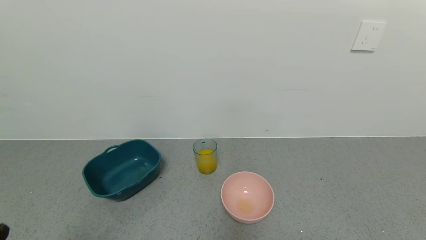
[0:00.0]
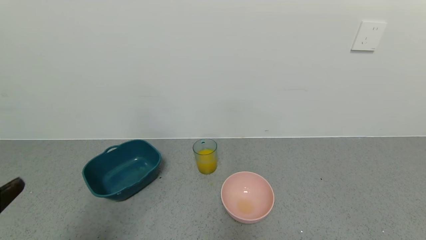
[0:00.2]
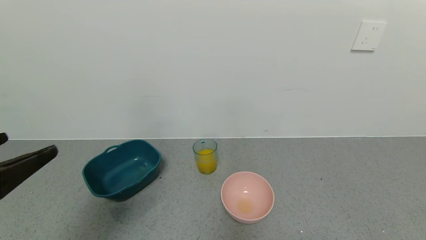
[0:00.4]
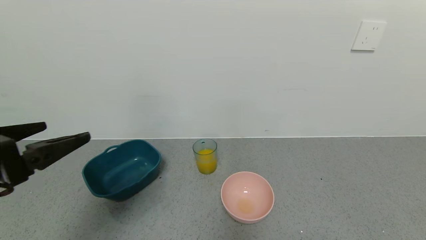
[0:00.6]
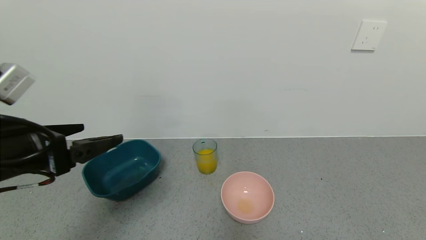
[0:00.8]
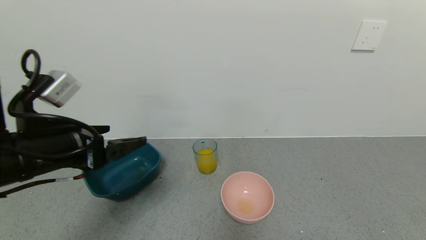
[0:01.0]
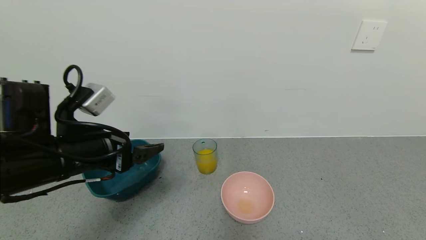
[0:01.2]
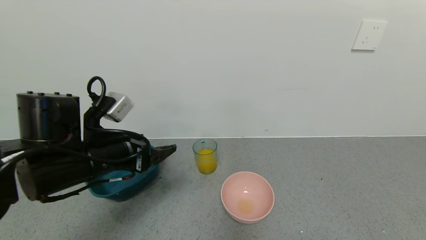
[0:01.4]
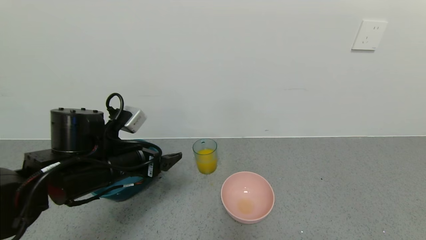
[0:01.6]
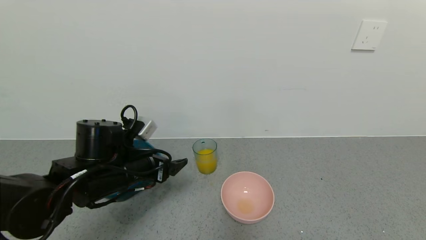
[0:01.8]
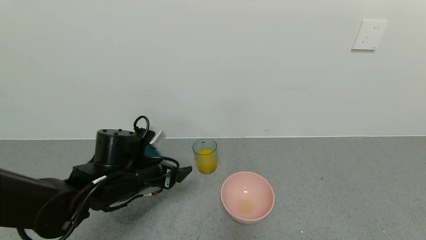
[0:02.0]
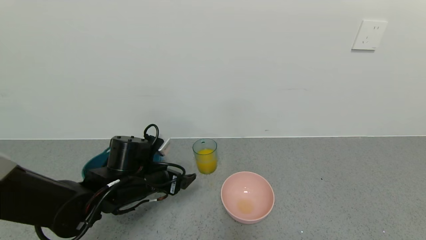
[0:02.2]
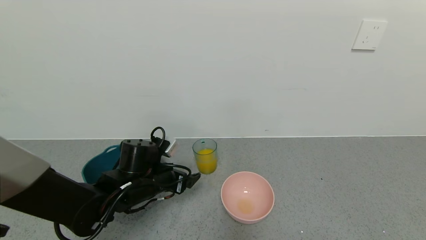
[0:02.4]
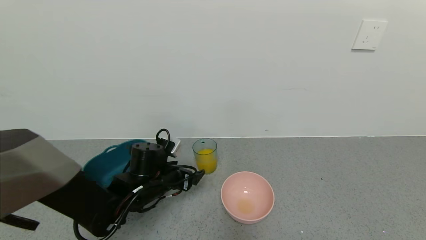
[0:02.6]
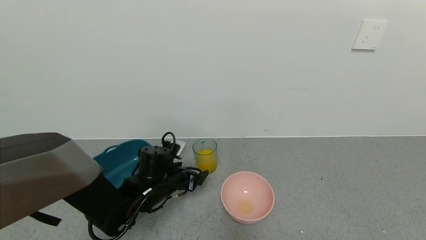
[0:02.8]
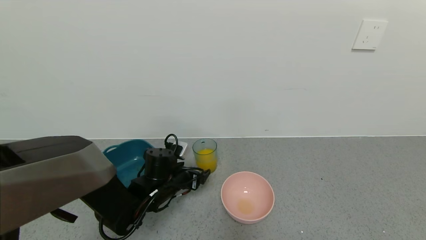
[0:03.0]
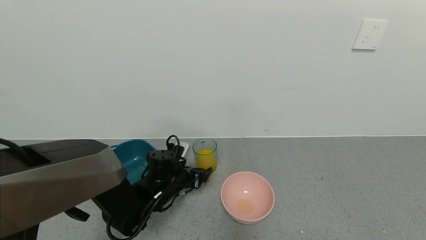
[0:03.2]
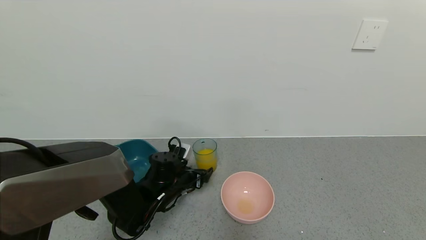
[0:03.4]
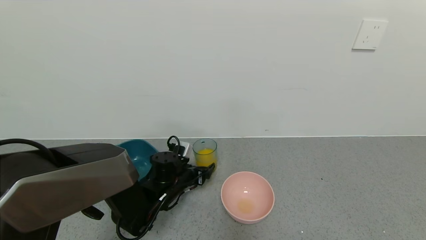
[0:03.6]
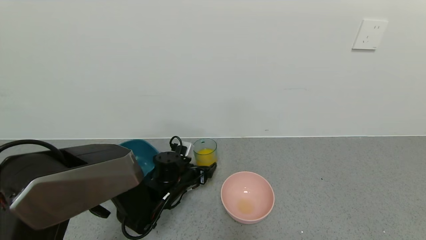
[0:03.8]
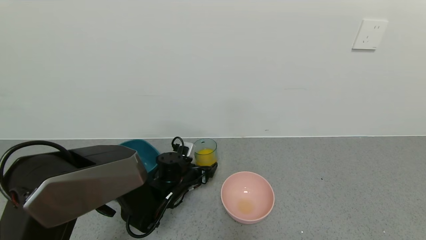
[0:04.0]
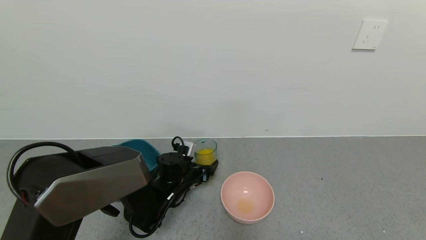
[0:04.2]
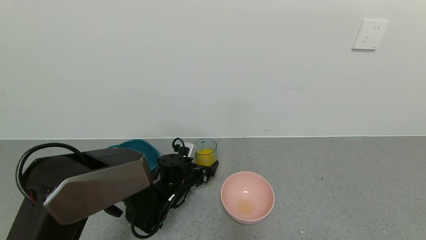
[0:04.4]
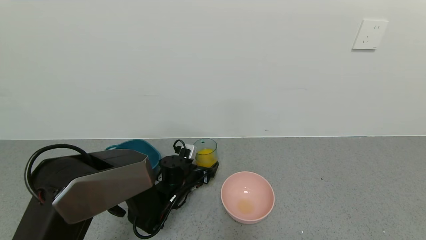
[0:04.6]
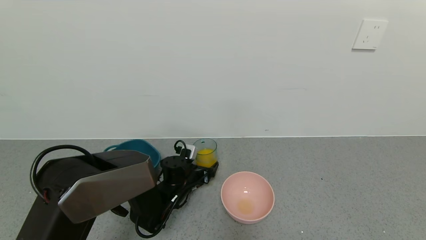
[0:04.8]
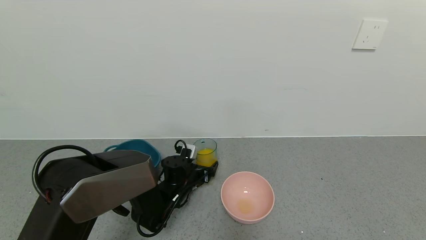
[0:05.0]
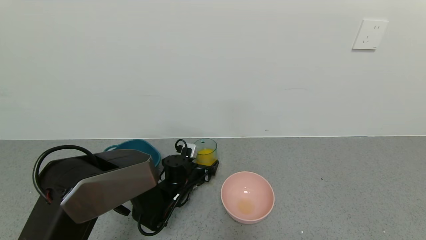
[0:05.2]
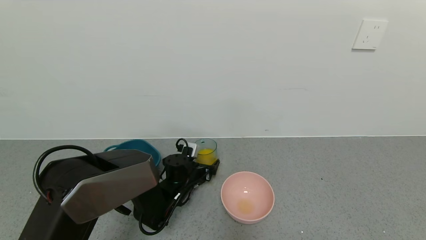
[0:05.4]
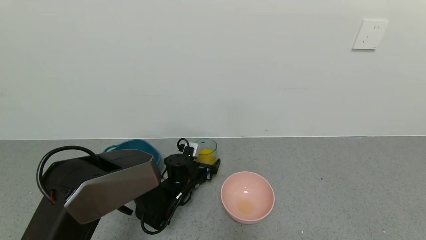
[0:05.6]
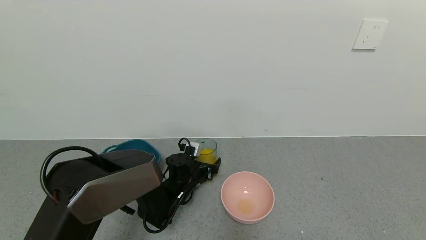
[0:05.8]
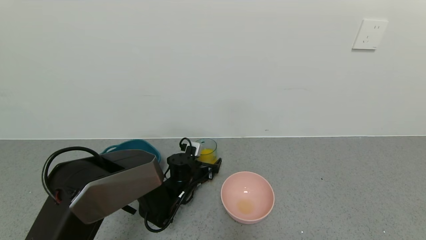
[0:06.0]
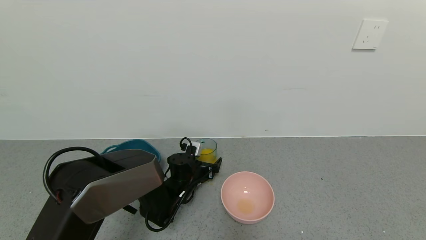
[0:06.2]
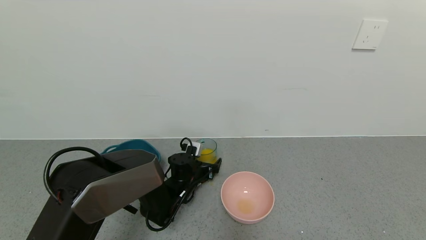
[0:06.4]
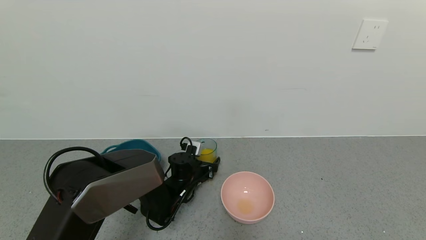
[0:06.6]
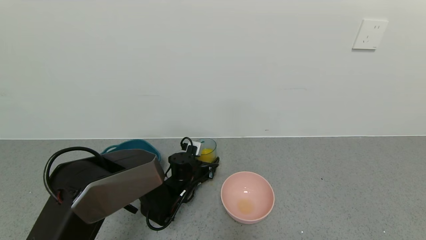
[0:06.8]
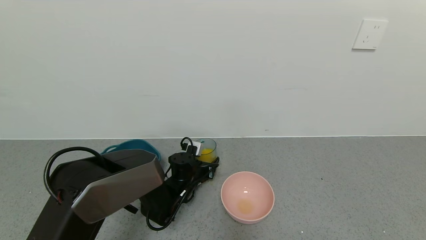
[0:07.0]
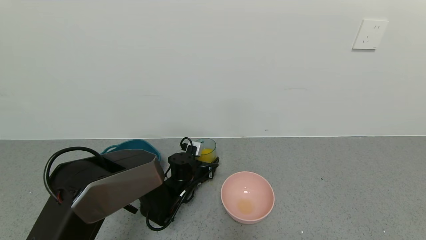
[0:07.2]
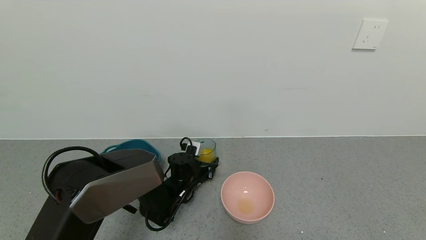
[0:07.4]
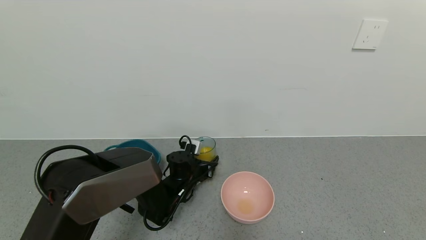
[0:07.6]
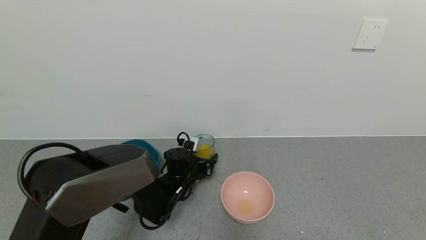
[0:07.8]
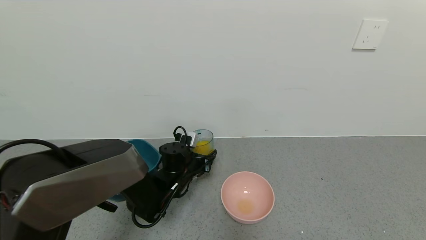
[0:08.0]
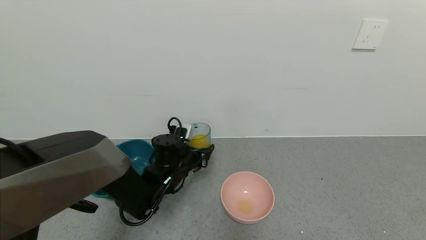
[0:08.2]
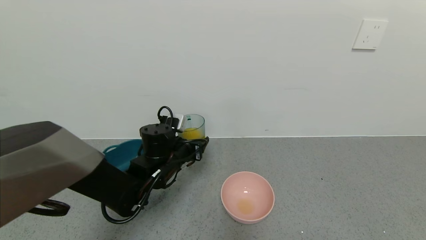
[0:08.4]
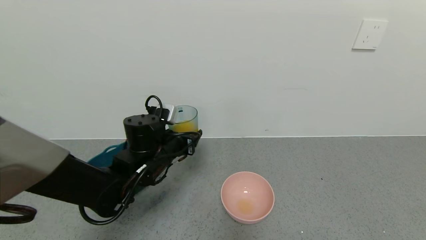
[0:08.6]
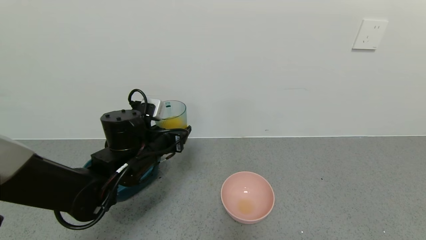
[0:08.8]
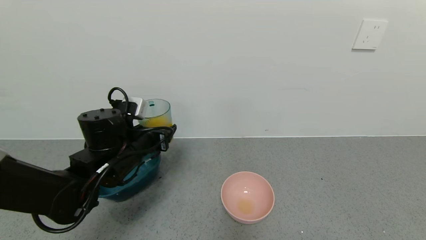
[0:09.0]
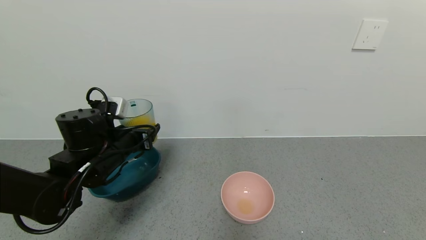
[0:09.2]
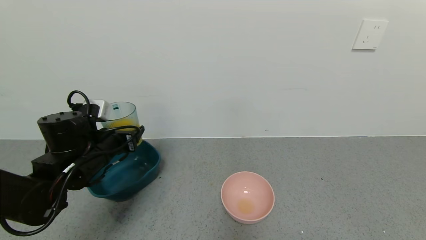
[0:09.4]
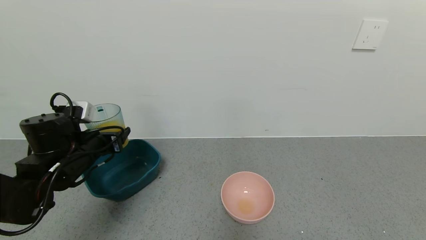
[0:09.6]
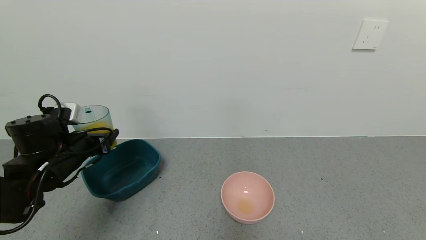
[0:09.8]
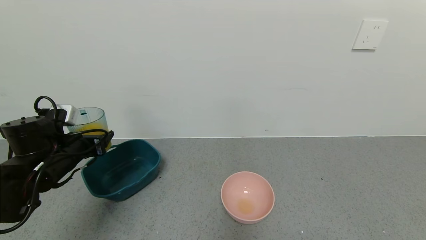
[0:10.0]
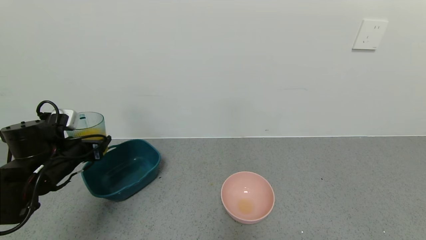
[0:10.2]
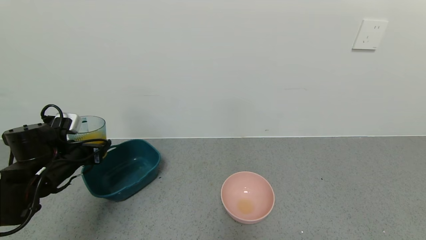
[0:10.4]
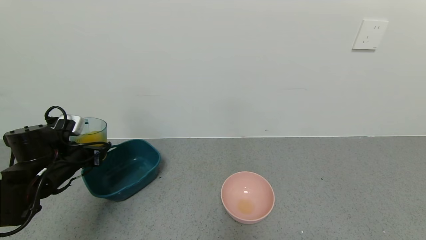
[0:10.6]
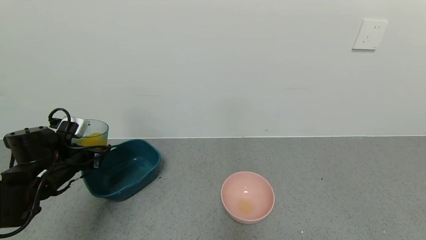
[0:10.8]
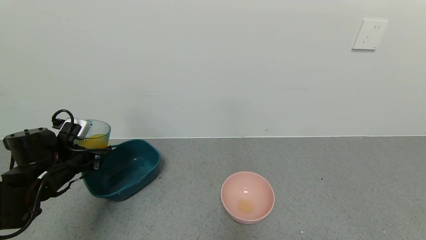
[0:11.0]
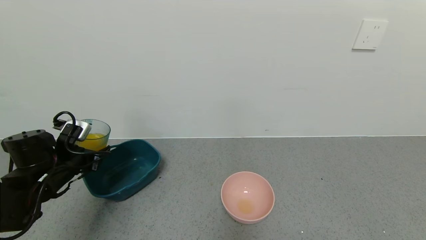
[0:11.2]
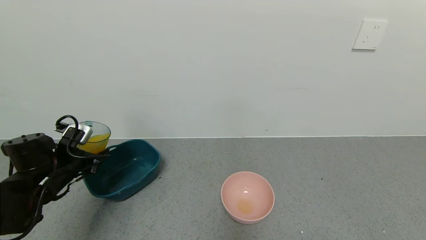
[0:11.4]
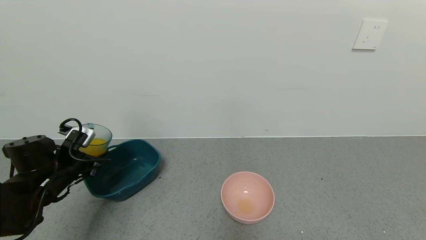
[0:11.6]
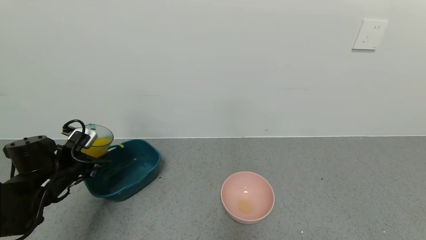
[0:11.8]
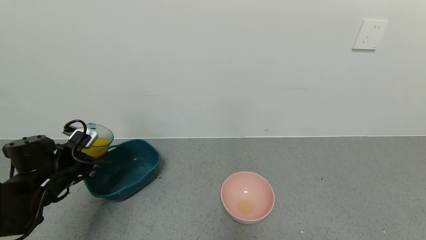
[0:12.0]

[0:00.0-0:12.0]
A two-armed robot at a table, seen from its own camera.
Task of the whole recording: use a gripper to pick up the cup and pour the liquid into a bowl or tray.
Step, 0:00.0 to 0:07.0: Grasp the glass of orange juice with the left gripper.
0:00.0 to 0:01.6: The left gripper is displaced forward, to the right and downward by about 20 cm.
0:01.6 to 0:03.0: The left gripper heads downward, forward and to the right, covering about 15 cm.
0:03.0 to 0:04.4: The left gripper changes place by roughly 5 cm.
0:04.4 to 0:06.0: The grippers stay close to where they were, moving slightly.
0:06.0 to 0:07.6: The left gripper closes.
0:07.6 to 0:09.0: The left gripper is displaced upward, to the left and backward by approximately 20 cm.
0:09.0 to 0:10.4: The left gripper heads to the left, covering about 15 cm.

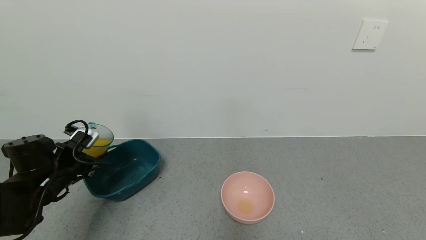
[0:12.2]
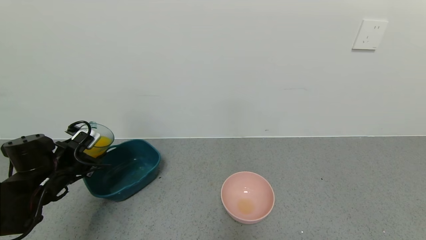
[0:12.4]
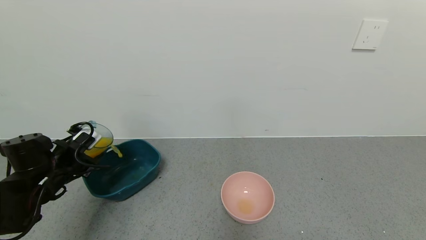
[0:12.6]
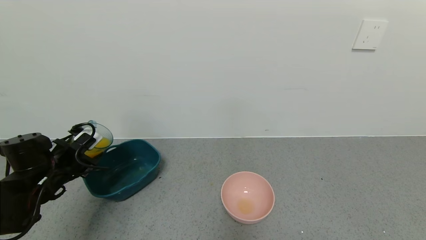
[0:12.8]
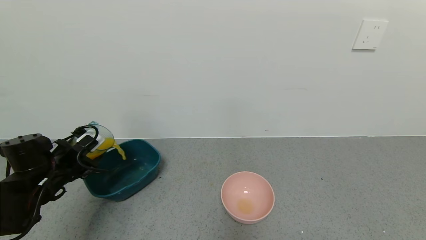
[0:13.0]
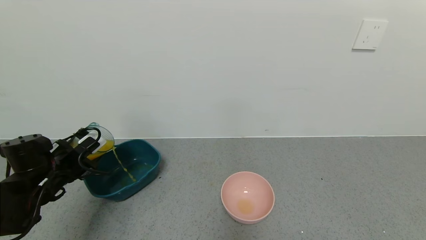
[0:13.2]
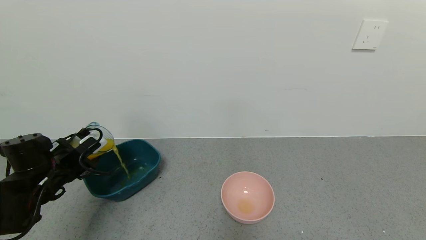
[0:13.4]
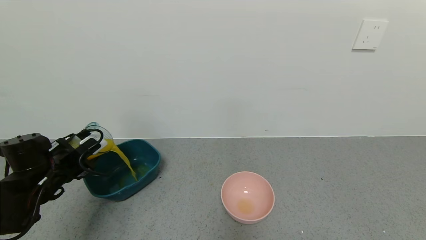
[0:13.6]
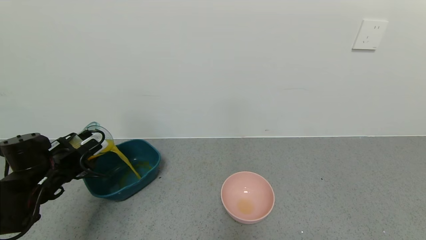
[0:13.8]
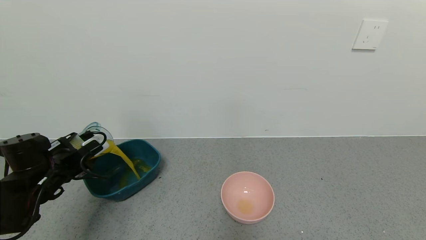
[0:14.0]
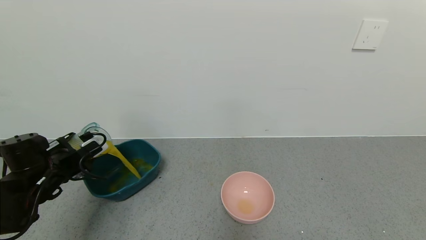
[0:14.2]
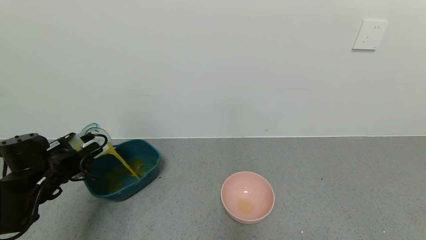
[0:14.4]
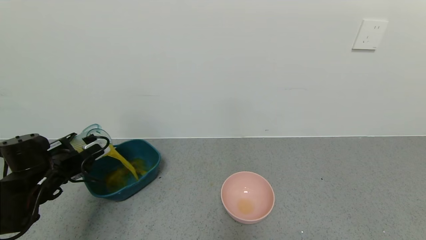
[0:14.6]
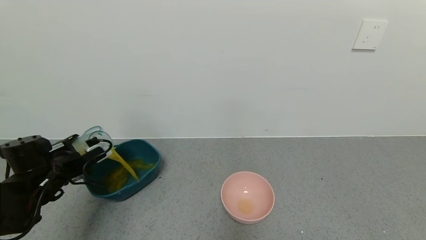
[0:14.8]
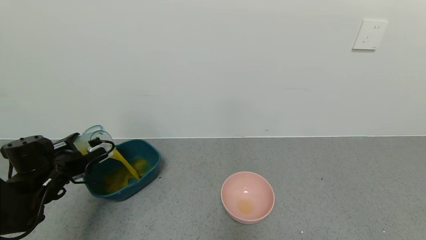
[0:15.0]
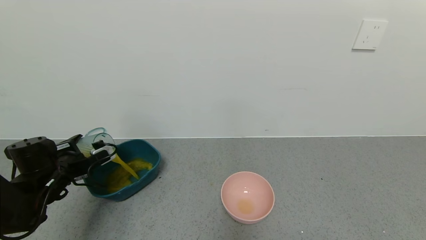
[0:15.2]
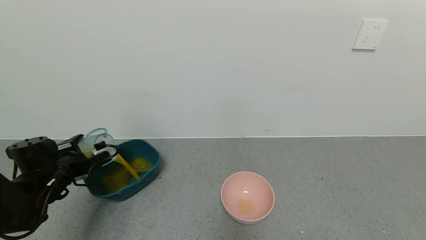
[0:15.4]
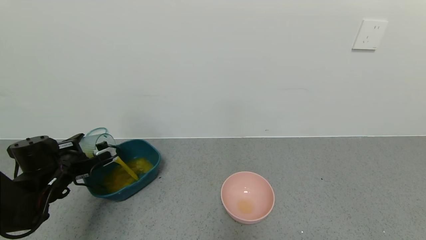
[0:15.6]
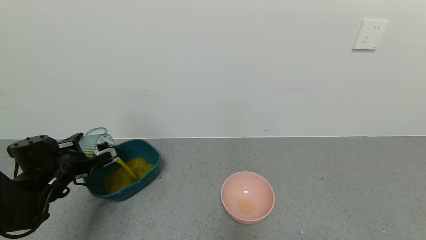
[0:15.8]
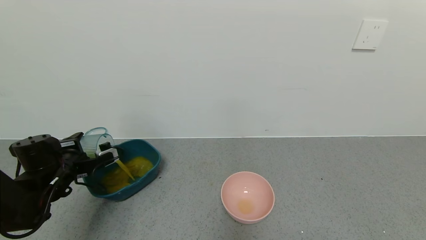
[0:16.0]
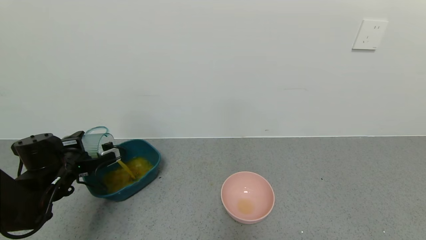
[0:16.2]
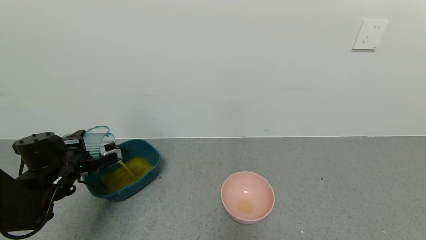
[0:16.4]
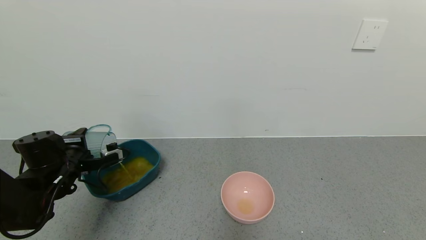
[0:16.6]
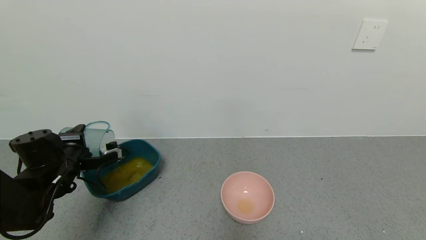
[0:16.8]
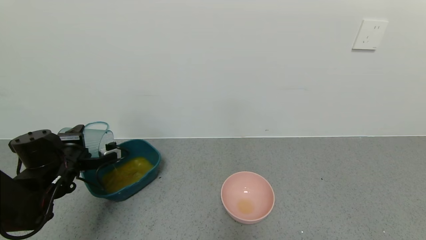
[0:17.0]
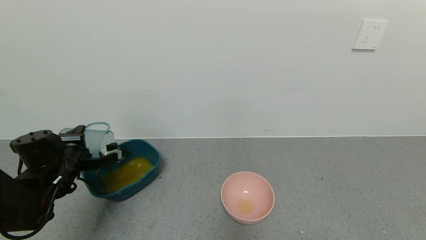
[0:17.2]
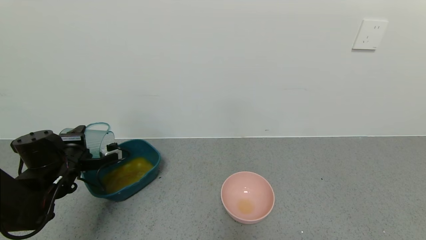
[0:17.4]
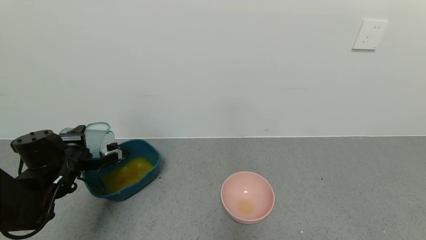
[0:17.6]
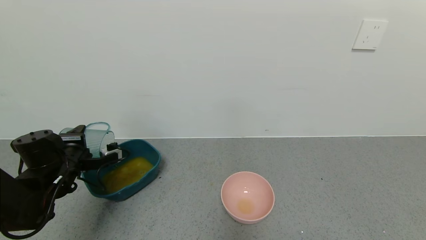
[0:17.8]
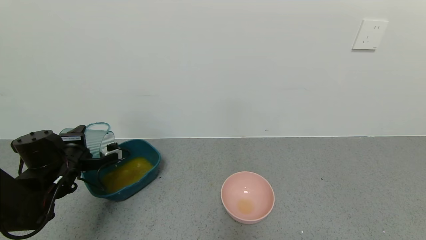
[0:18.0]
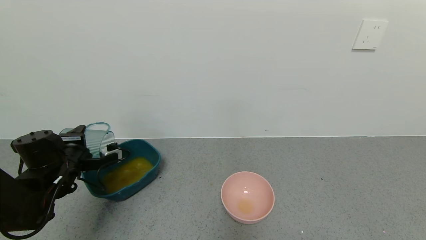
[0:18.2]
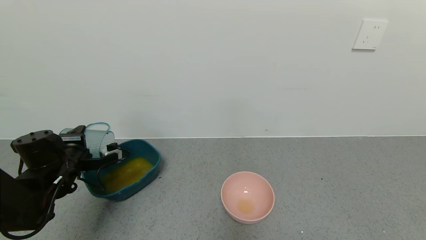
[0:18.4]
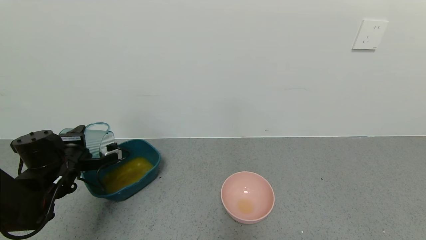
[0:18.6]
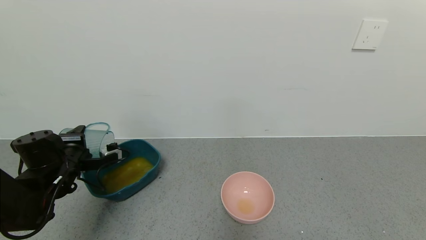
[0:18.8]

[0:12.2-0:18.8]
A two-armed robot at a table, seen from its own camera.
Task of the whole recording: use a gripper to pick up the cup and pour the liquid into a bowl or tray.
Step, 0:12.2 to 0:18.4: Pour the orange juice into the green bowl with the left gripper.
0:13.8 to 0:15.4: The grippers stay close to where they were, moving slightly.
0:17.2 to 0:18.8: Both grippers stay put.
